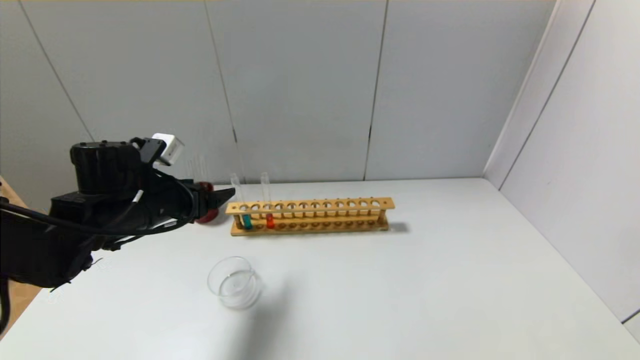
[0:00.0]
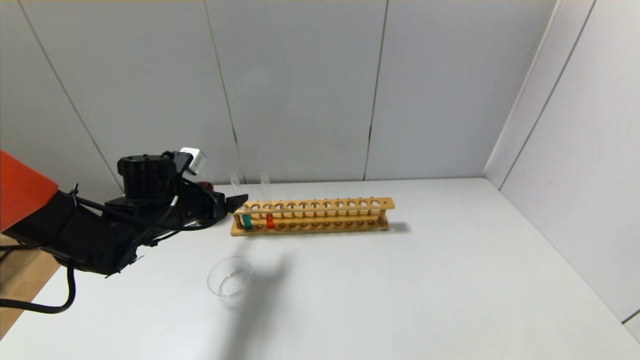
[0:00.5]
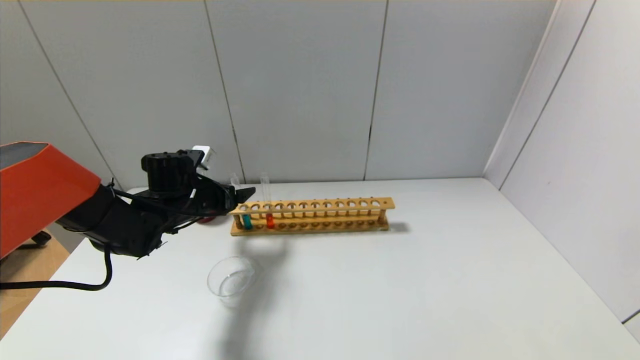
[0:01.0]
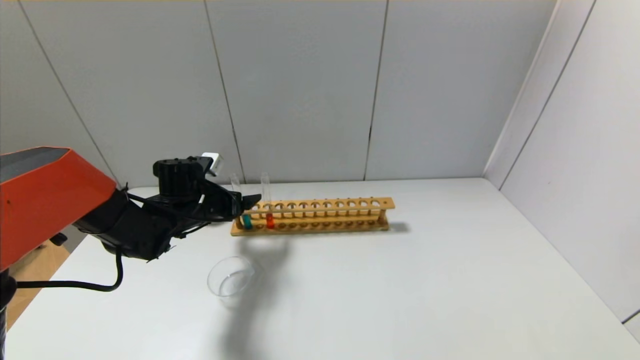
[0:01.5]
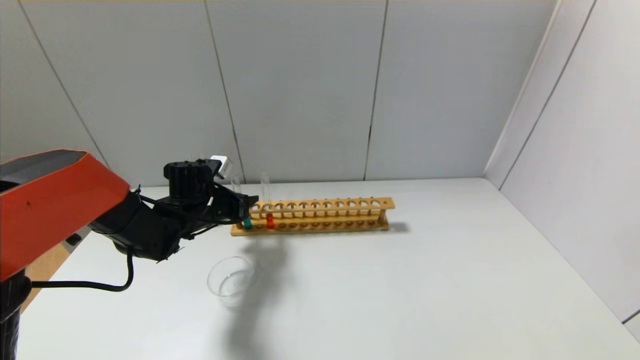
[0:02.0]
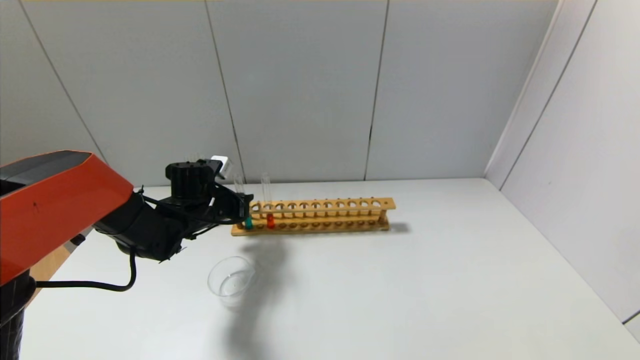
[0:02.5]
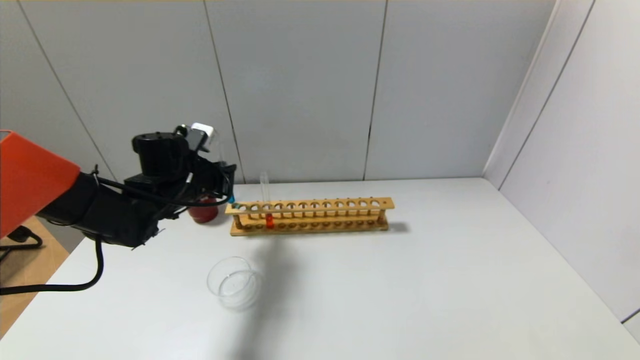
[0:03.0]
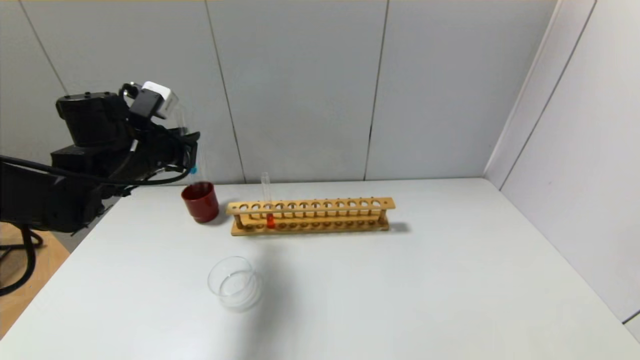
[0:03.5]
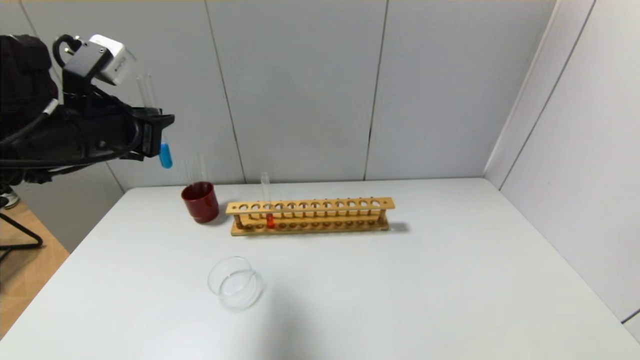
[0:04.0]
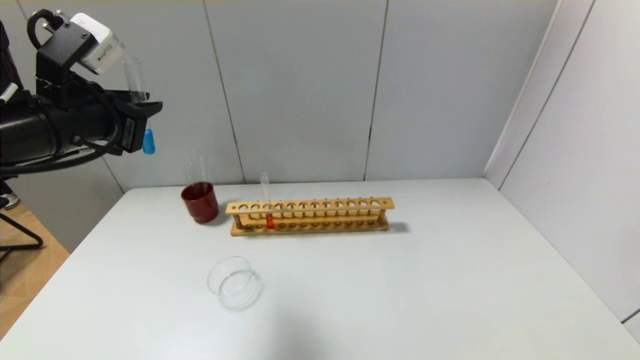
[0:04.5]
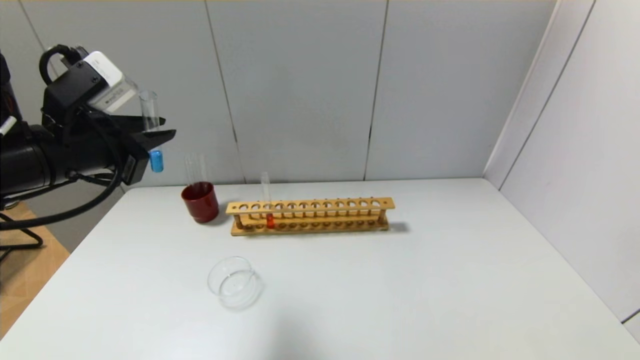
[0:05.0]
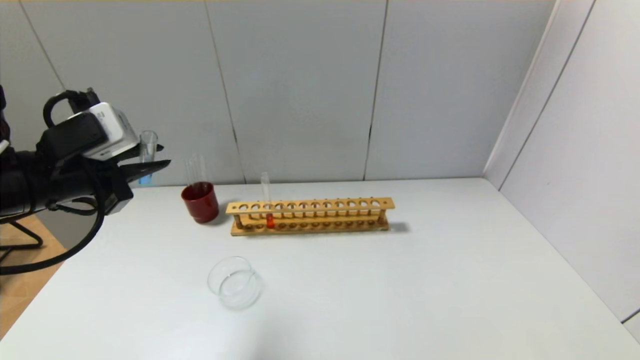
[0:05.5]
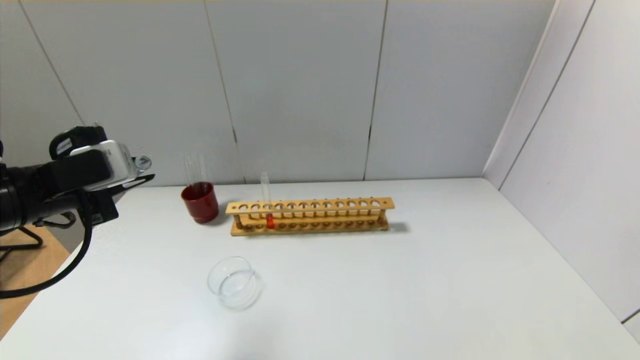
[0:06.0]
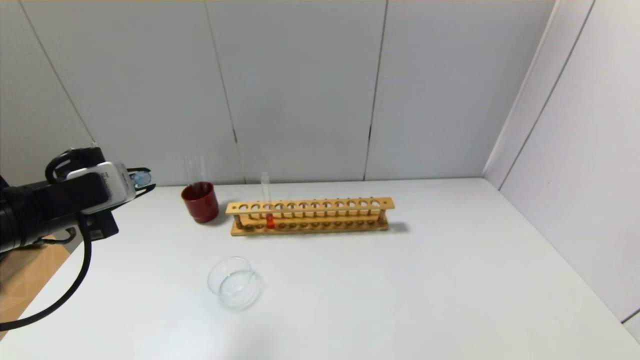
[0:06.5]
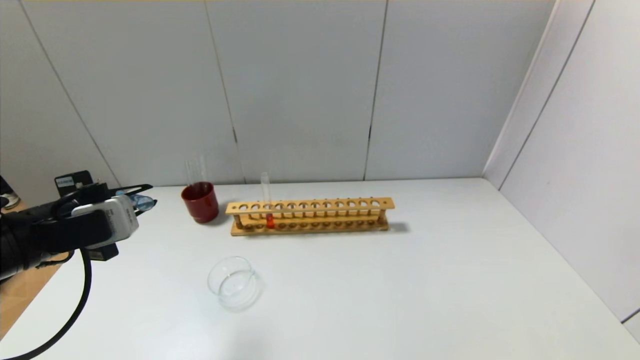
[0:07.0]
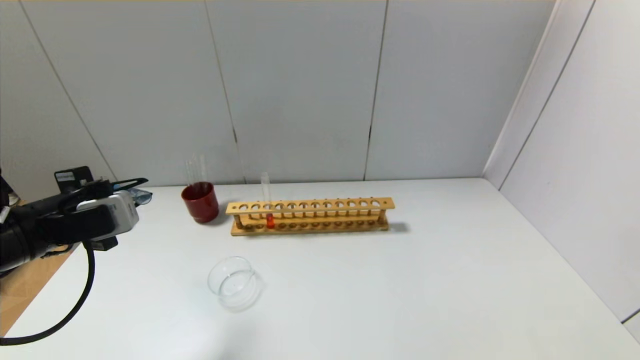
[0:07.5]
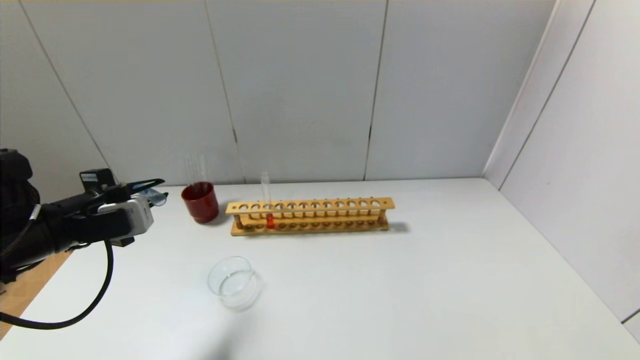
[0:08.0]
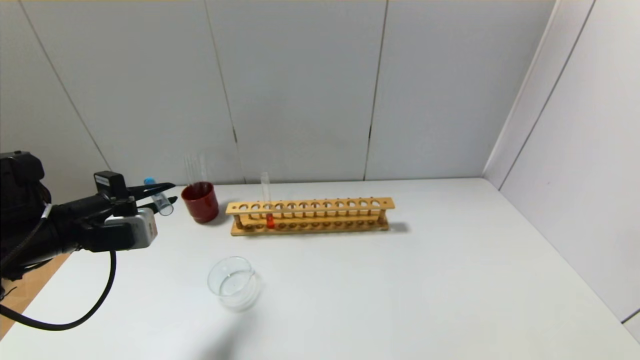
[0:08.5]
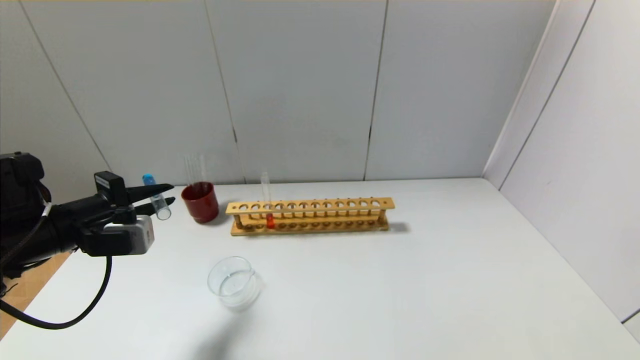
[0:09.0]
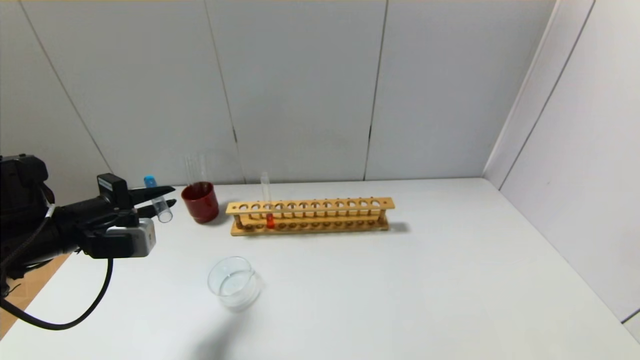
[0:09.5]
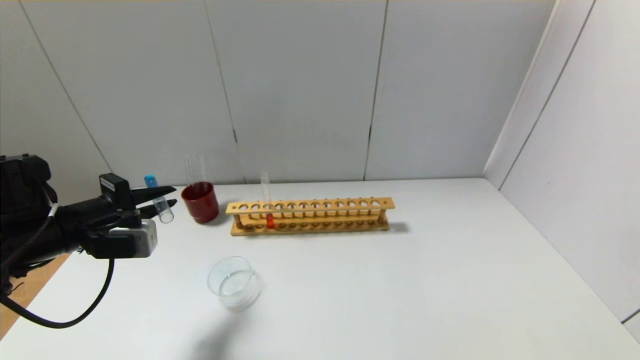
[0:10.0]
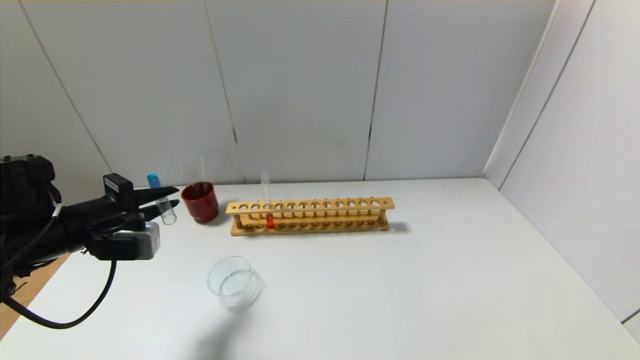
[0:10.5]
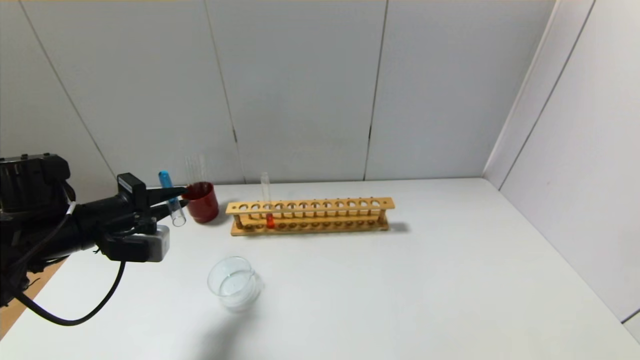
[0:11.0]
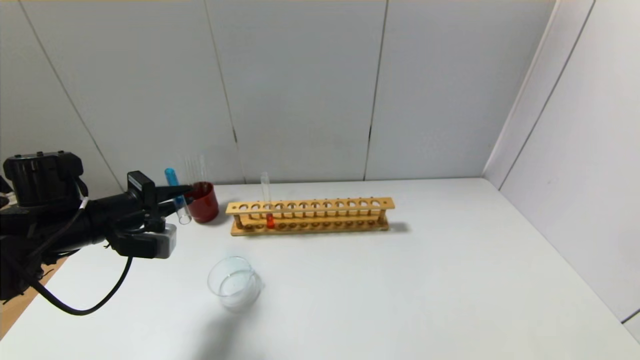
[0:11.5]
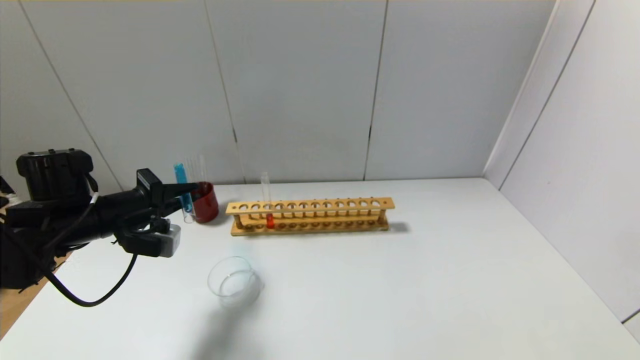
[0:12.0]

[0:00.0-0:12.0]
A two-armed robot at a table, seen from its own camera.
Step, 0.0 to 2.0 s: Grasp the blue reagent with the left gripper.
0.0 to 2.0 s: The left gripper is displaced forward and downward by some 10 cm, and closes.
2.0 to 4.0 s: The left gripper is displaced upward and backward by some 25 cm.
4.0 to 6.0 s: The left gripper shifts by about 10 cm.
6.0 to 8.0 s: The left gripper shifts some 5 cm downward.
8.0 to 10.0 s: The grippers make only small movements.
10.0 to 12.0 s: The grippers move only a little.

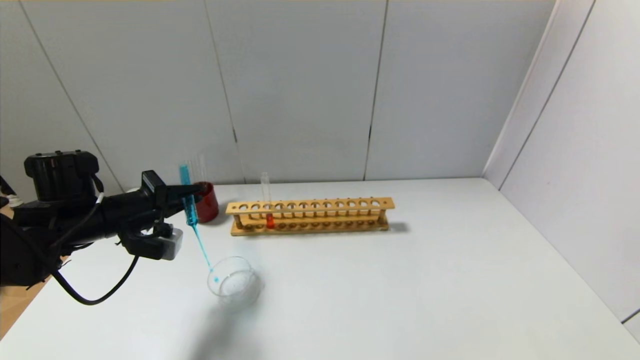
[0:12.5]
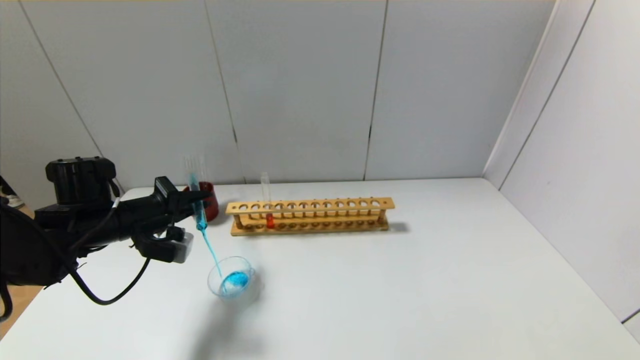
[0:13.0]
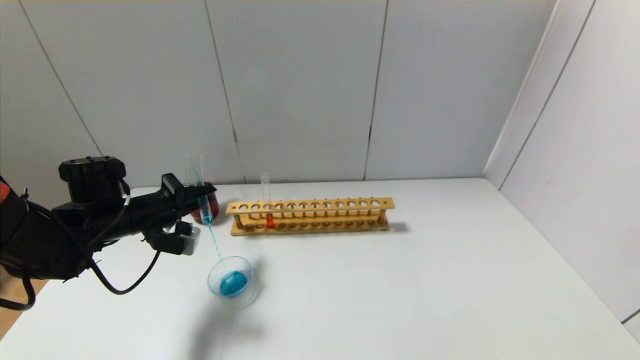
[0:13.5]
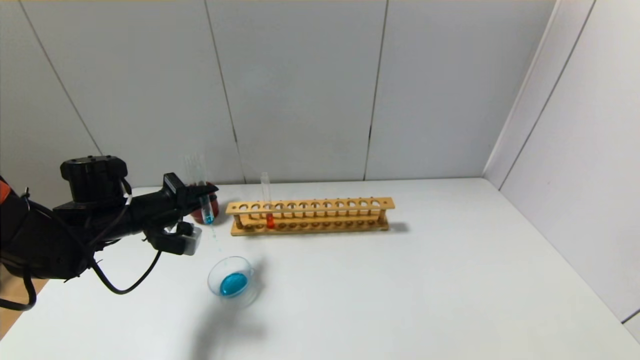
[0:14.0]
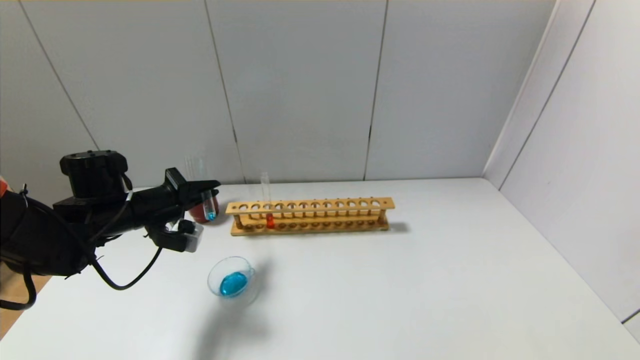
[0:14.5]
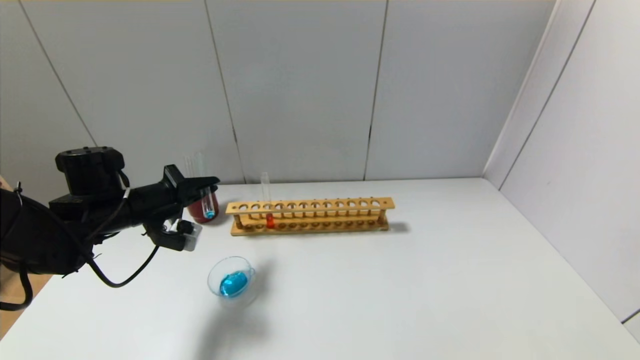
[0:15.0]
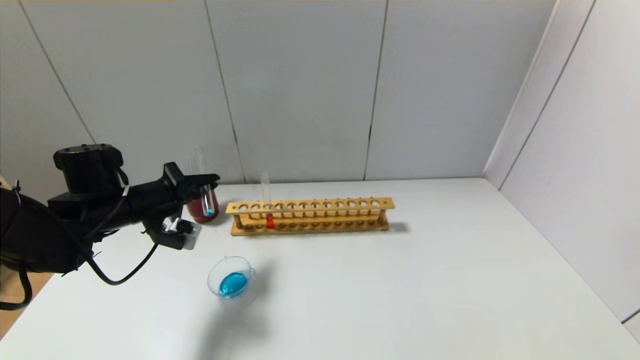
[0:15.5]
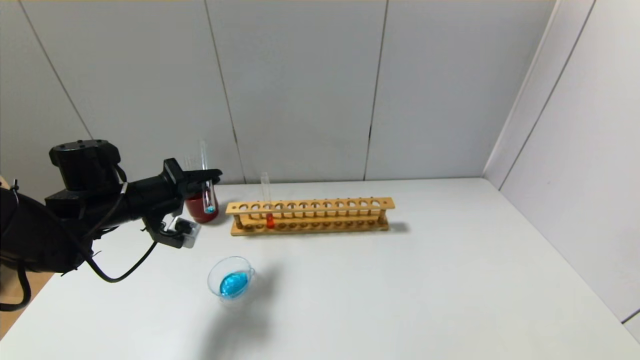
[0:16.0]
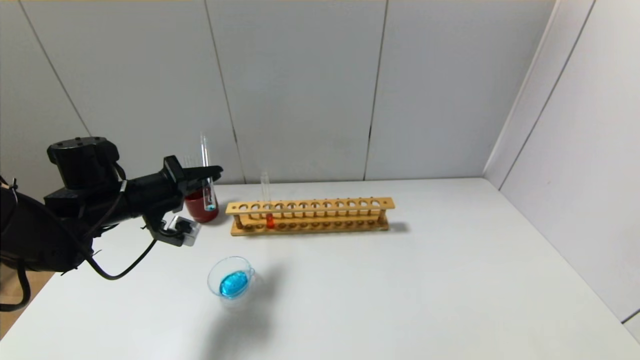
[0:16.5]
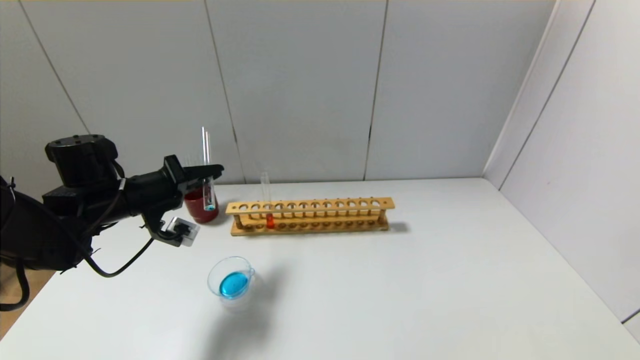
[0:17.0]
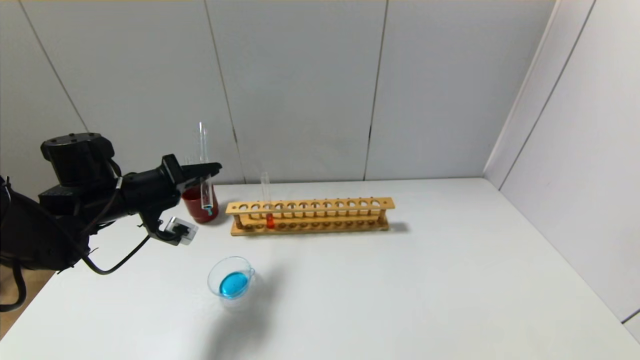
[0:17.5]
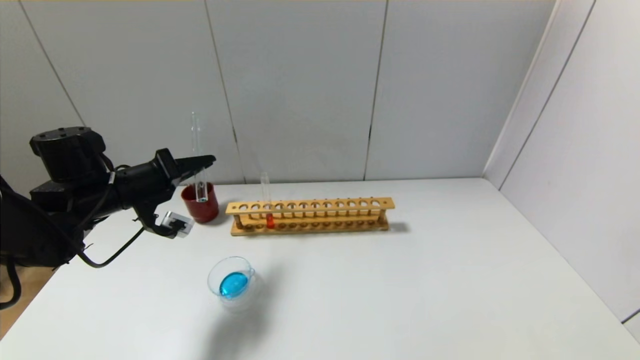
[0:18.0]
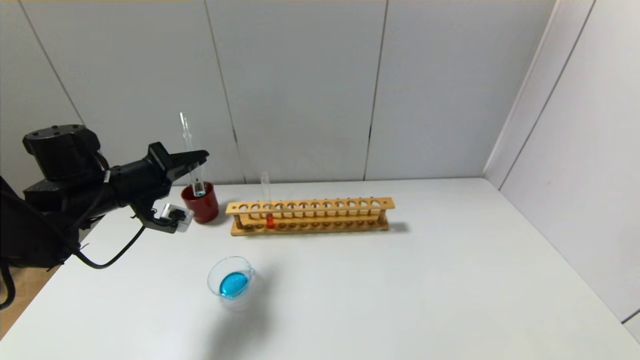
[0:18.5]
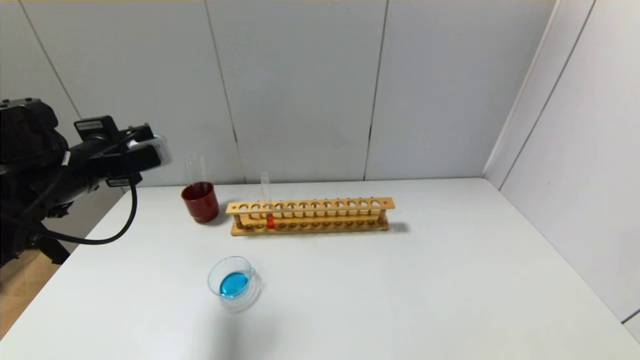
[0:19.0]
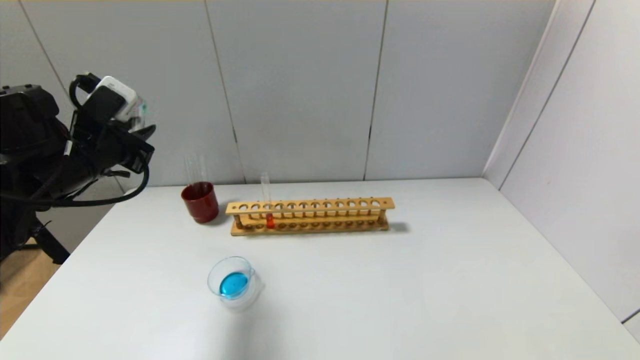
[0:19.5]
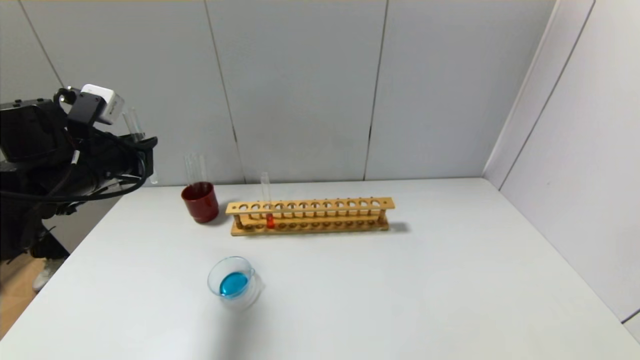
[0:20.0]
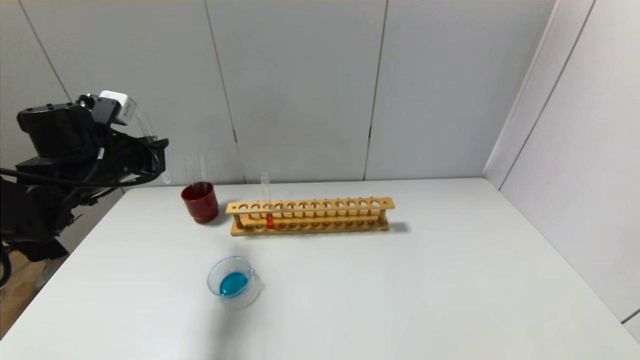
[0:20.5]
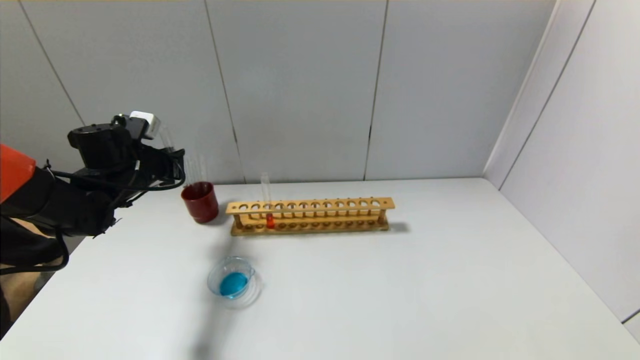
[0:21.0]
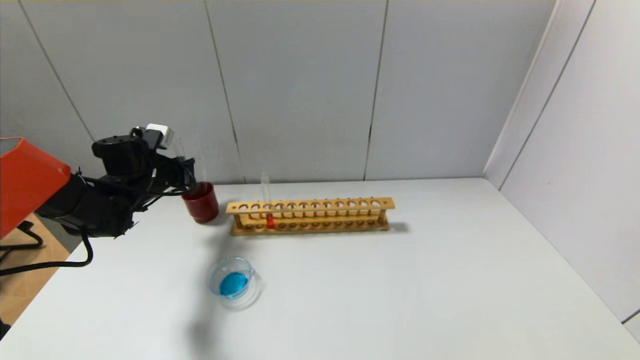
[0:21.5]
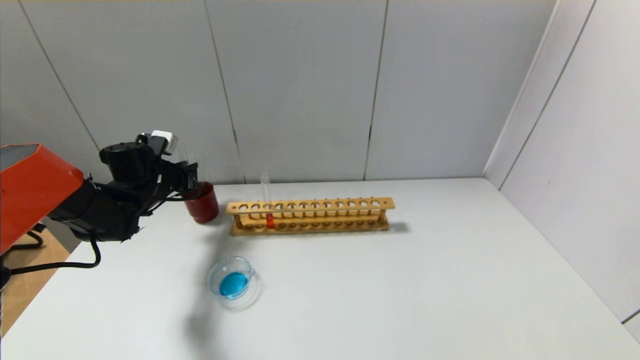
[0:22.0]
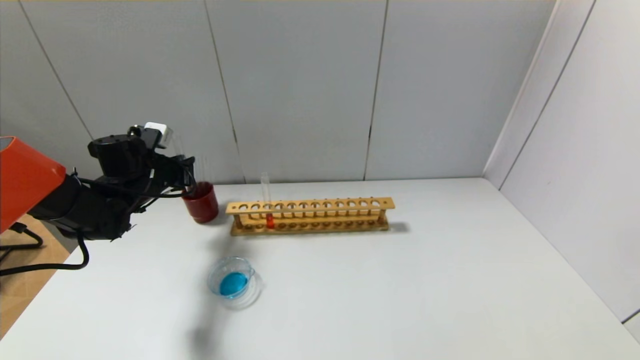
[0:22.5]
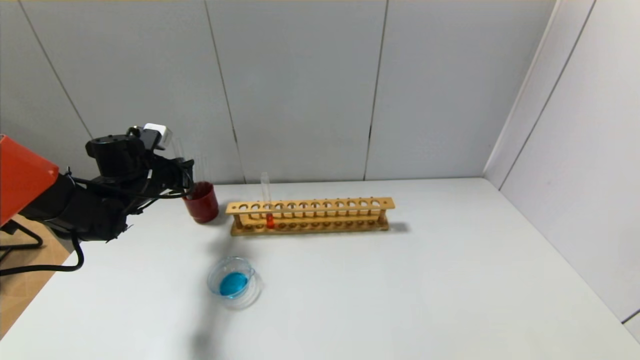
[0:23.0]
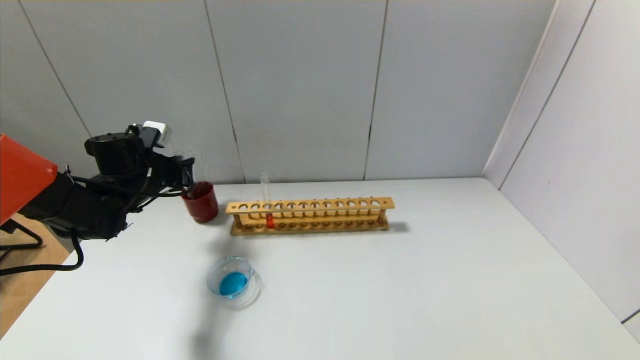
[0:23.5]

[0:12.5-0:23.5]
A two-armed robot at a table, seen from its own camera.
Step, 12.5 to 18.5 s: Pour the blue reagent into the graduated cylinder with the left gripper.
12.5 to 16.0 s: There are only small adjustments of the grippers.
16.0 to 18.0 s: There are only small adjustments of the grippers.
18.0 to 20.0 s: The left gripper ends up roughly 5 cm from where it was.
20.0 to 21.5 s: The left gripper is displaced forward and downward by about 15 cm.
21.5 to 23.5 s: The grippers stay close to where they were, moving slightly.
